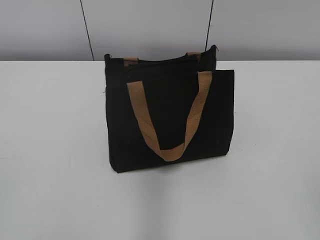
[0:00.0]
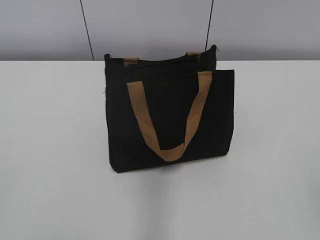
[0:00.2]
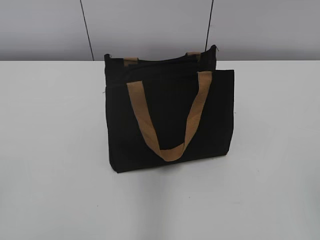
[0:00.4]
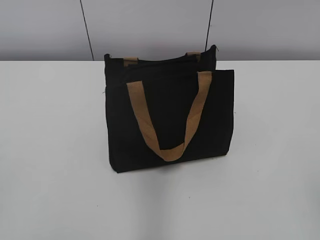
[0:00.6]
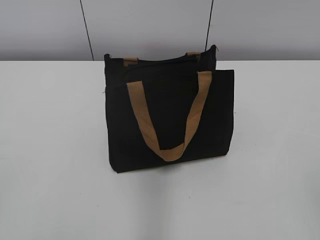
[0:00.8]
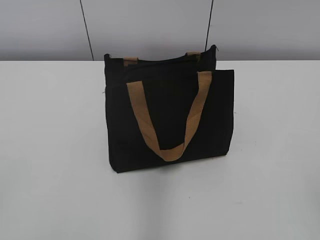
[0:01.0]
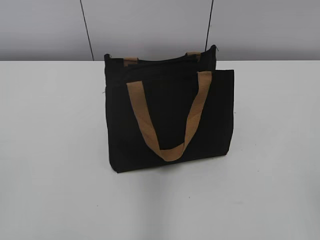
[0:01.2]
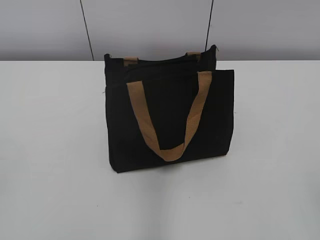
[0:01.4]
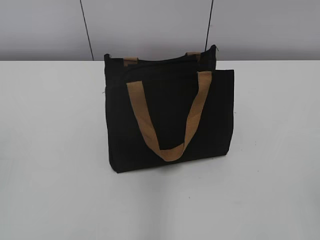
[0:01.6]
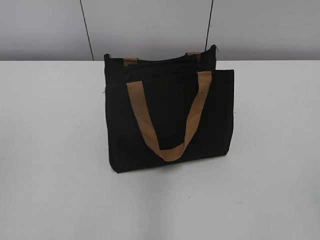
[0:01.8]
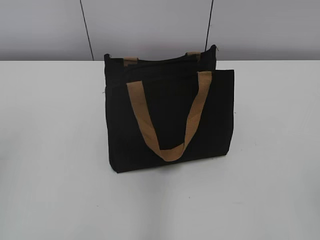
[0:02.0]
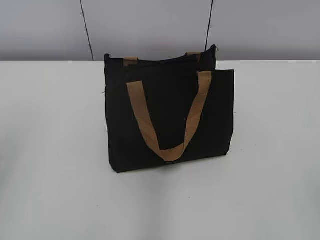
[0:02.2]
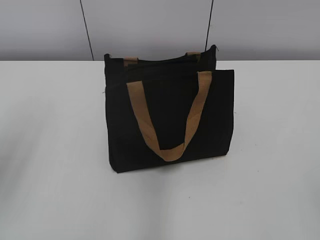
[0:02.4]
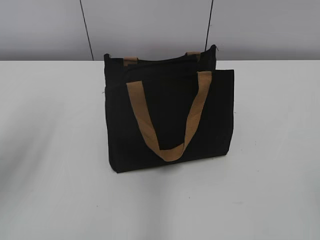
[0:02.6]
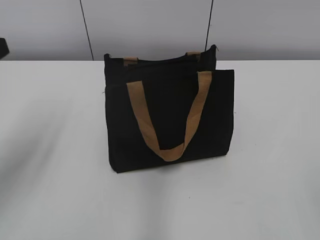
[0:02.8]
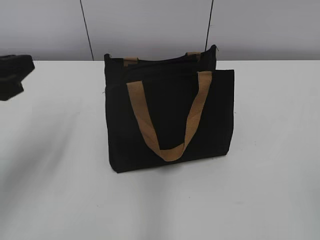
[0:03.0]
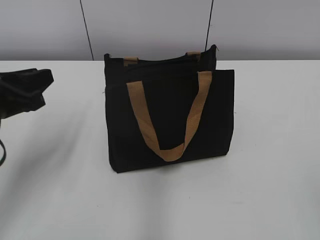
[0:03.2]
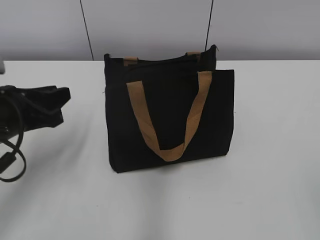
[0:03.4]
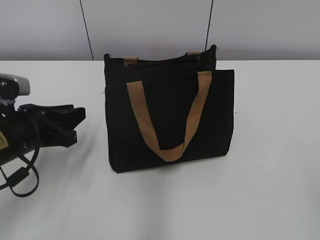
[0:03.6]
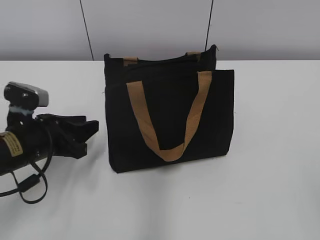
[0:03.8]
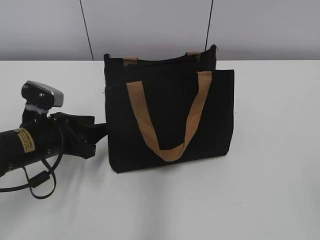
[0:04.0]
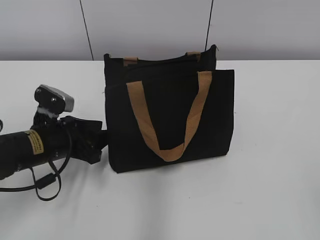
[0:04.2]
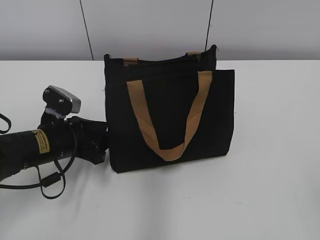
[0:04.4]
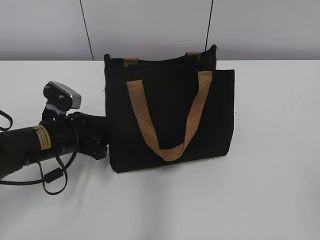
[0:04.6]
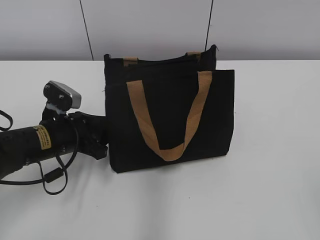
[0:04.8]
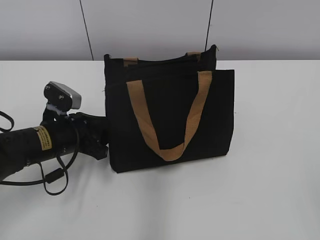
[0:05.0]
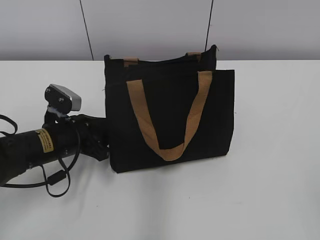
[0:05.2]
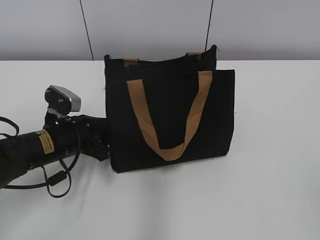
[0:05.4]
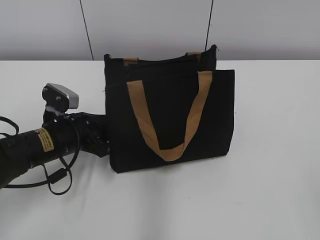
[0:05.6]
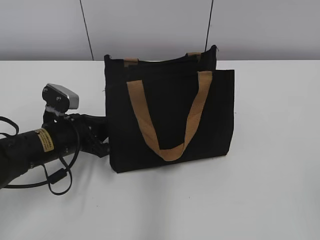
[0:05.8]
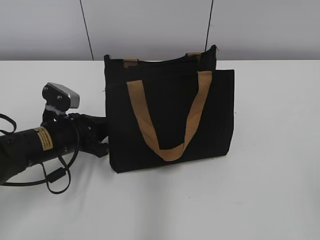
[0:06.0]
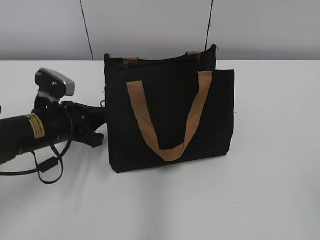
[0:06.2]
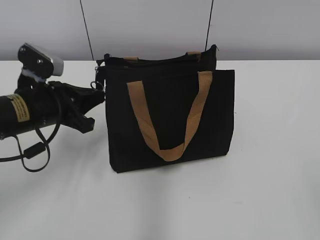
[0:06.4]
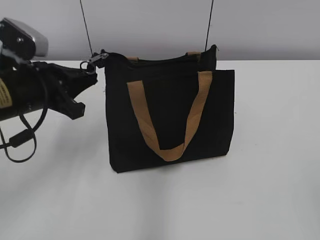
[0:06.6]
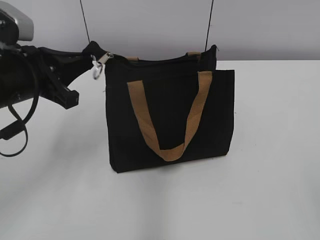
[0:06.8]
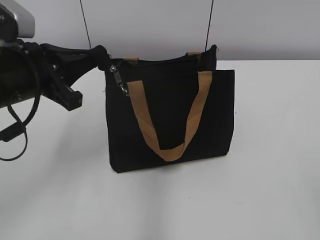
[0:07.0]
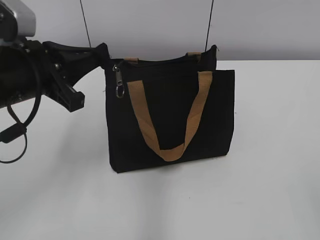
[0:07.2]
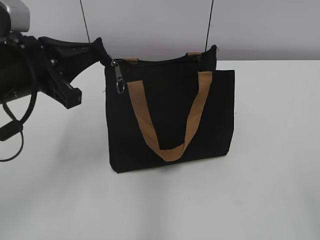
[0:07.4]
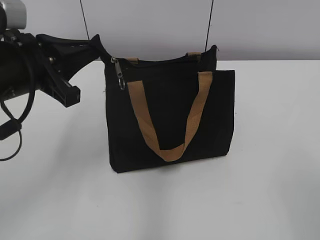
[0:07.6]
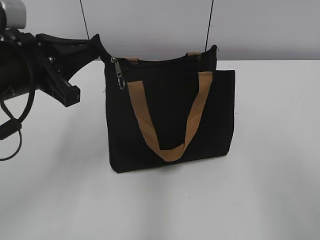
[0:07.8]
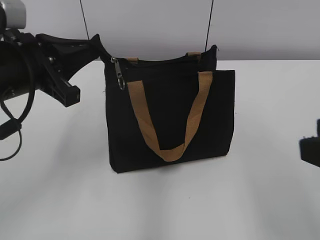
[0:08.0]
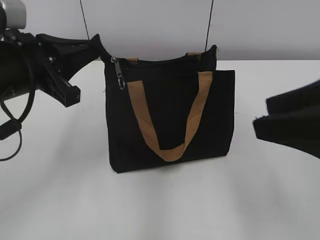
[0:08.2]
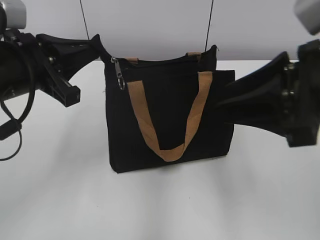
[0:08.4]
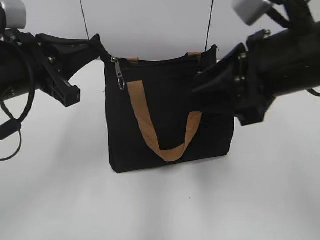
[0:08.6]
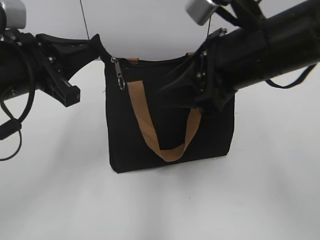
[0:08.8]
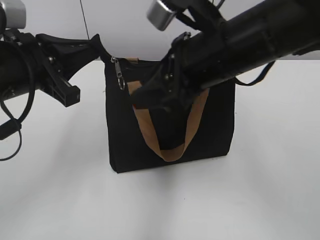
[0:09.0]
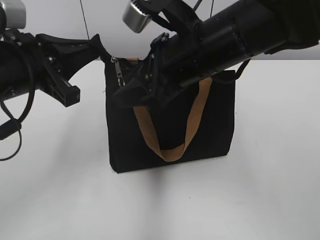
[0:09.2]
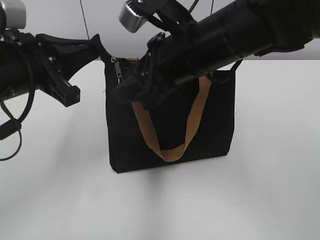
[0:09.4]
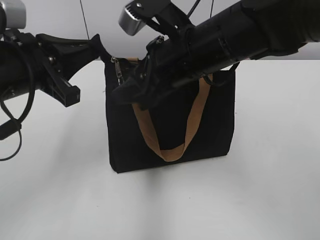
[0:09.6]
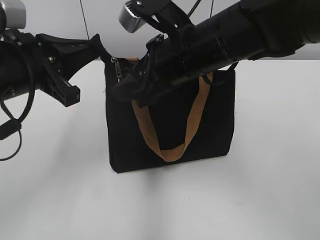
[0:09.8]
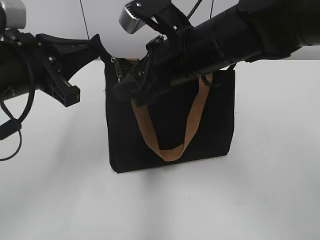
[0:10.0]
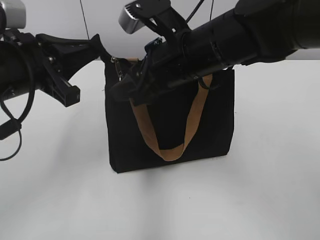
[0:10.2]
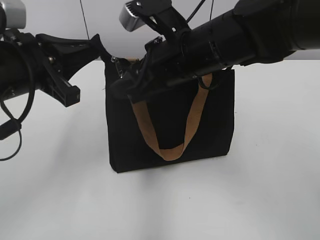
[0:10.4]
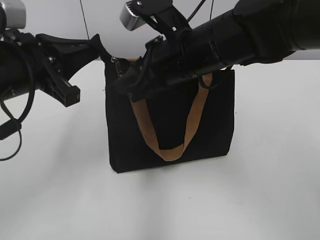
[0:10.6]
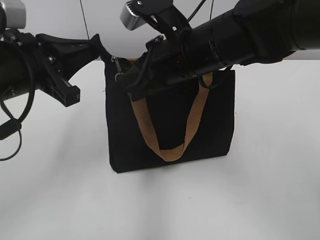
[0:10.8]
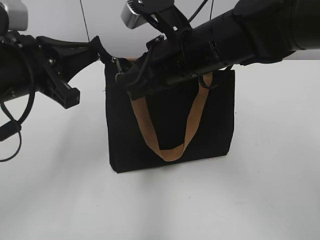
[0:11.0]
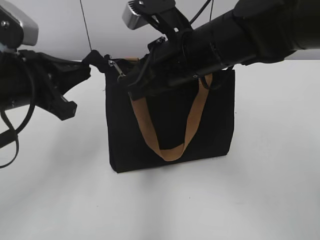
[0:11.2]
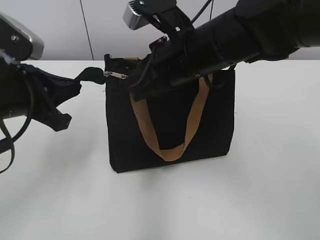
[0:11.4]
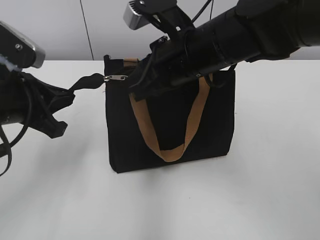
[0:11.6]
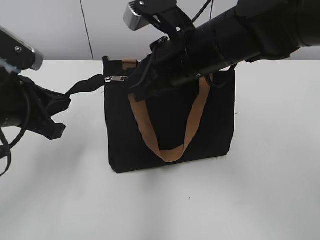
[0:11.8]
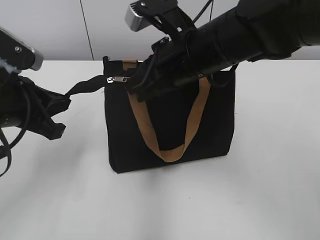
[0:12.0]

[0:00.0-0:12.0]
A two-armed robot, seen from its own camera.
1.6 to 3.0 s: The left gripper travels forward and downward by roughly 20 cm.
3.0 to 4.4 s: The left gripper travels downward, forward and to the right by approximately 20 cm, and opens up.
4.4 to 6.0 s: The left gripper closes its fingers.
6.0 to 7.6 s: The left gripper goes roughly 15 cm upward.
7.6 to 9.0 s: The right gripper is displaced forward and to the left by about 30 cm.
9.0 to 10.4 s: The right gripper ends up roughly 5 cm from where it was.
10.4 to 12.0 s: The right gripper closes.

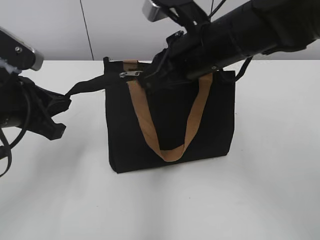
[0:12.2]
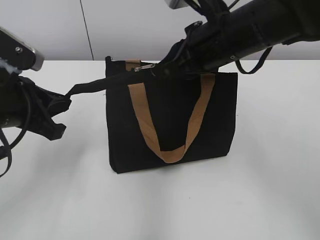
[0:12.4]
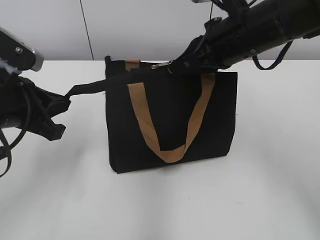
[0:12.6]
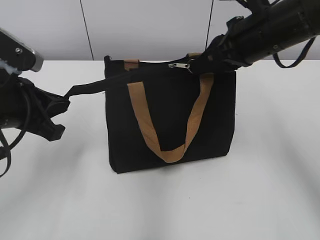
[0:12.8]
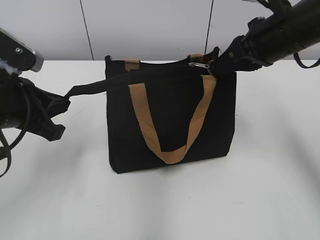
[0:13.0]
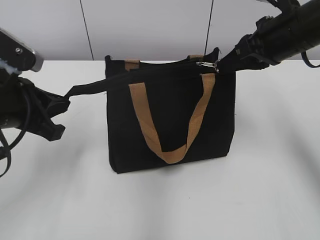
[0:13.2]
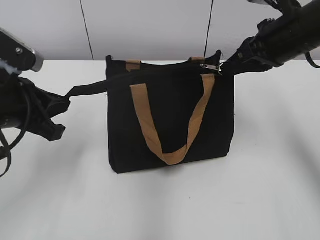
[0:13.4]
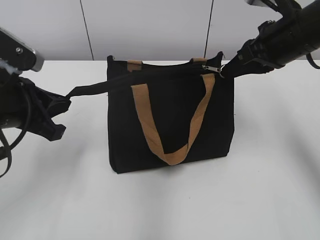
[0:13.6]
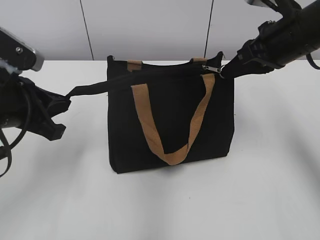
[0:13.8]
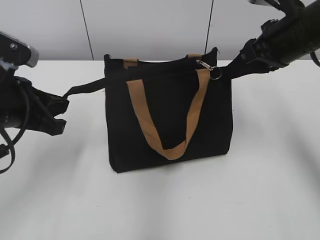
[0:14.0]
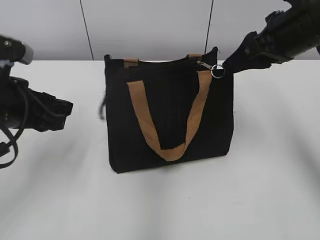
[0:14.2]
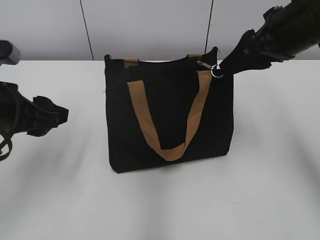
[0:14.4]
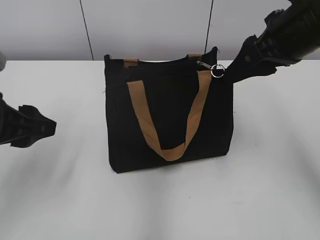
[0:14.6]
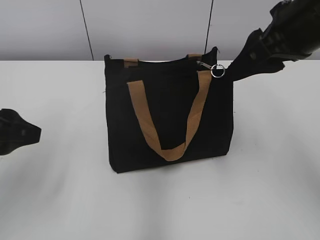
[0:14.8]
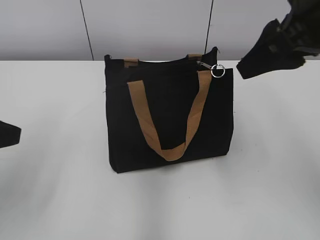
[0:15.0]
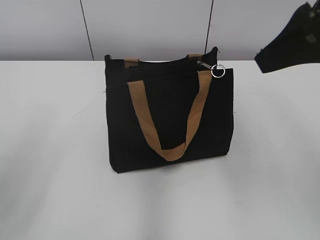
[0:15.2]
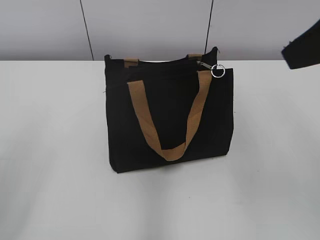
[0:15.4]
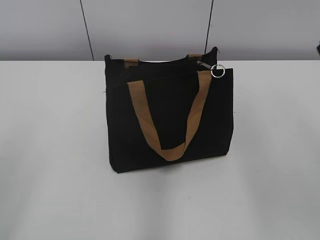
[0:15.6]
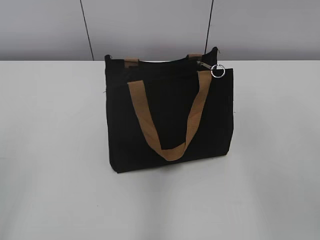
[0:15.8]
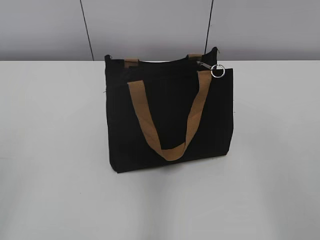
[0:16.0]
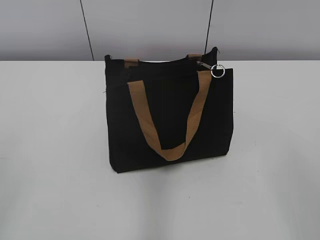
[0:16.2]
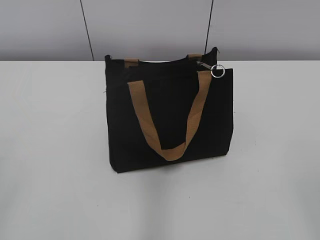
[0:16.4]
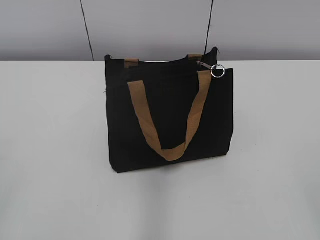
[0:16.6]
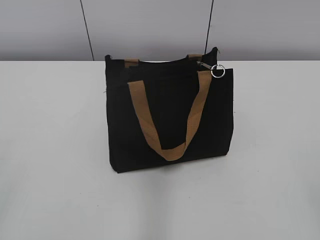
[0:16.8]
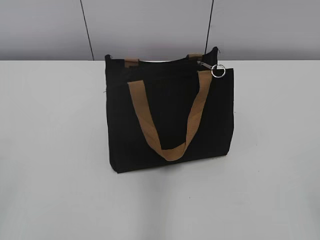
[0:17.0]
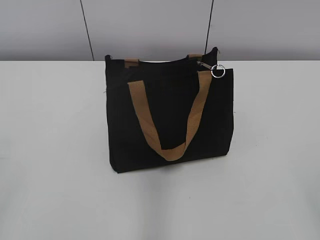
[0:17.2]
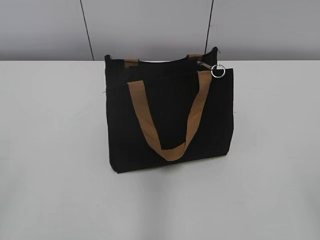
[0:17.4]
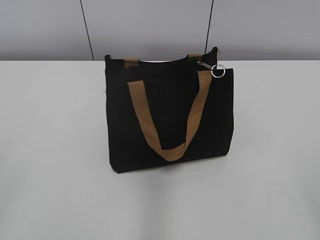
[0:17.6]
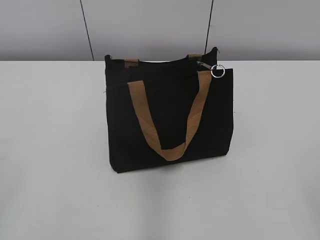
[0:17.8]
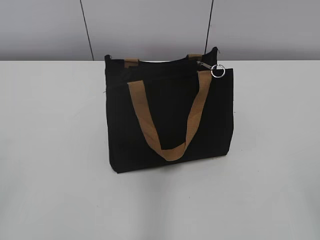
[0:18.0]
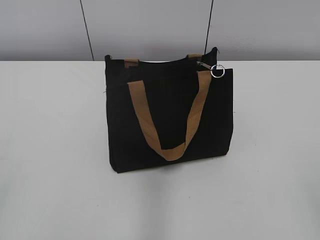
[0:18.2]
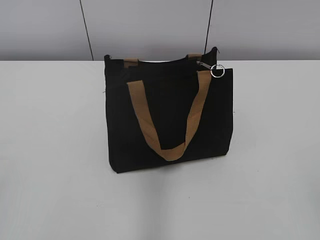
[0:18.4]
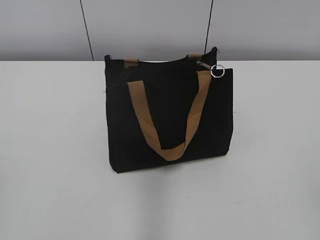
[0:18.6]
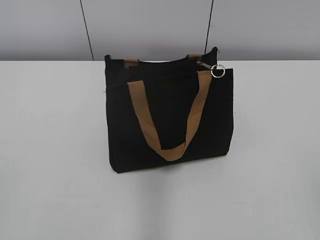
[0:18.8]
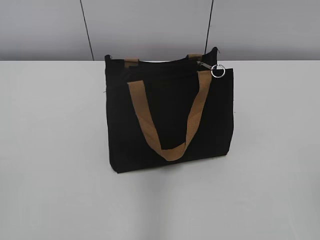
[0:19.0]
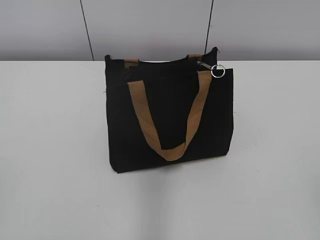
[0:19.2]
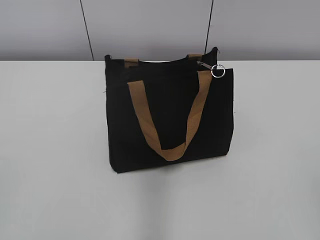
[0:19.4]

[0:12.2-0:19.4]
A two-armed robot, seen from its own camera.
Step, 14.2 to 14.6 s: Zip up the bag with your right hand.
12.2 to 13.6 s: The right gripper goes approximately 15 cm to the right.
13.6 to 15.0 s: The left gripper is displaced backward by some 5 cm, and opens up. Meanwhile the right gripper heads backward and upward, covering some 10 cm, and opens its fingers.
15.0 to 16.6 s: The right gripper heads backward, covering about 30 cm. Meanwhile the left gripper travels backward and to the left by some 15 cm.

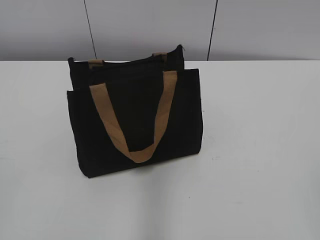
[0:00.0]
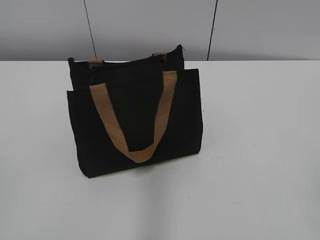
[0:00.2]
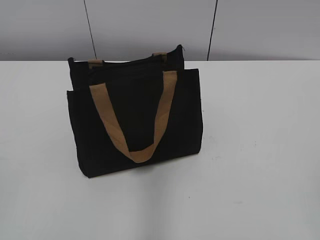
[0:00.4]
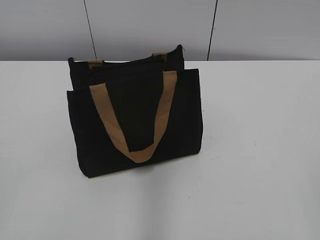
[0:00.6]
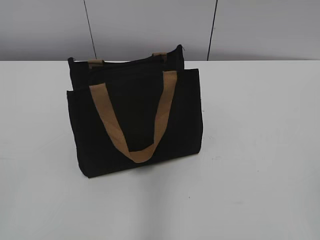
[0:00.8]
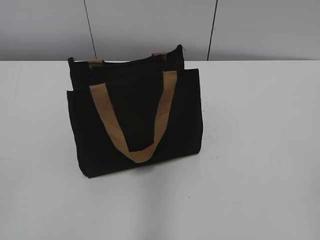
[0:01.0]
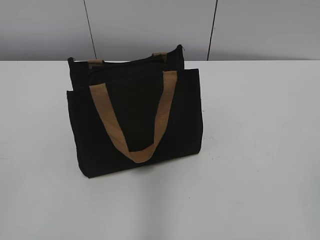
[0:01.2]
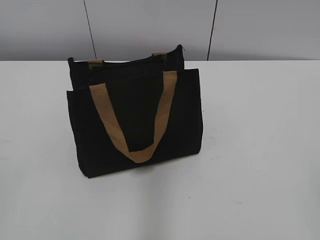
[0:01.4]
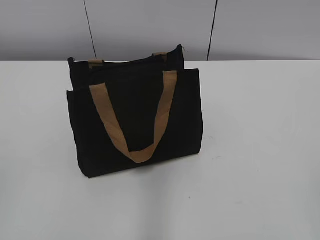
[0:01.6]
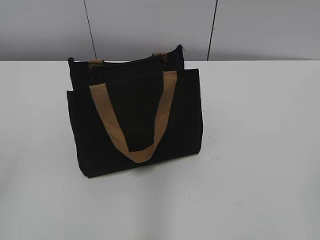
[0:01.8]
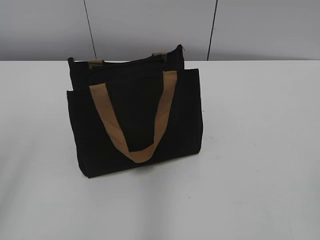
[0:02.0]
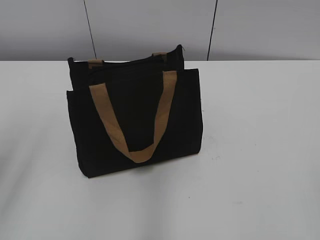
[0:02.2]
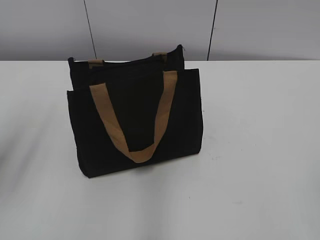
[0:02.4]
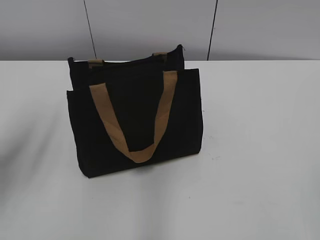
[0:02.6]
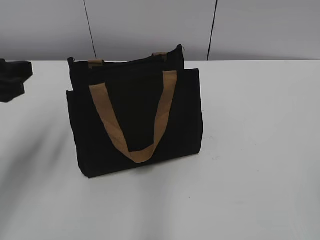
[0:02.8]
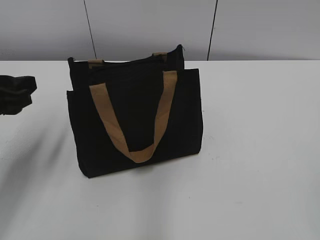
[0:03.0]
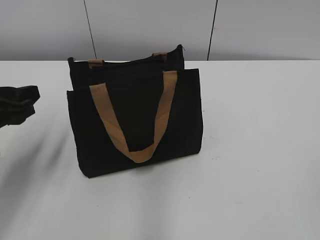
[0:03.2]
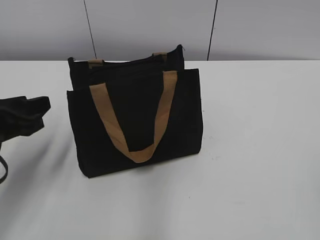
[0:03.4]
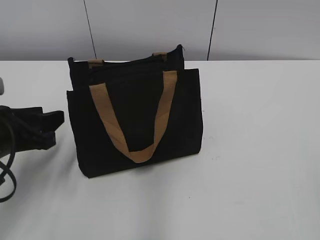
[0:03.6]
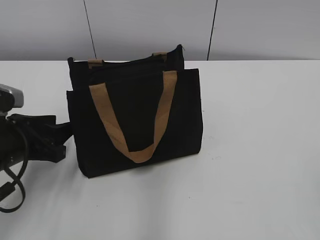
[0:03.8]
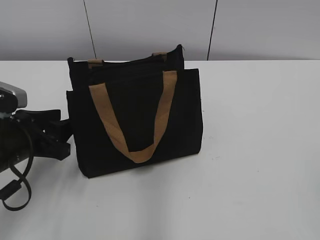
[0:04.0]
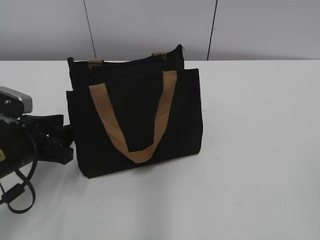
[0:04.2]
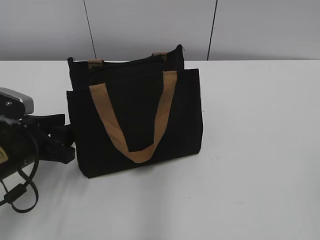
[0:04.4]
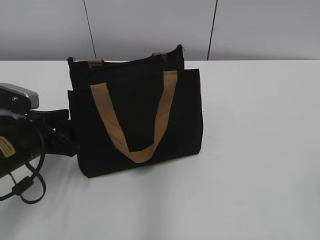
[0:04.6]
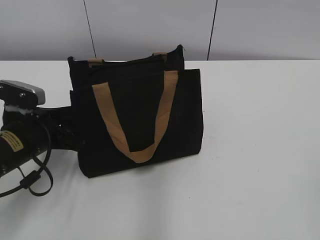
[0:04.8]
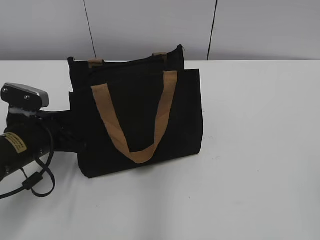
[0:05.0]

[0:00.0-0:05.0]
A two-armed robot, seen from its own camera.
1.6 to 3.4 s: The left gripper moves forward and downward, approximately 25 cm.
3.4 to 5.0 s: The left gripper moves downward, about 5 cm.
